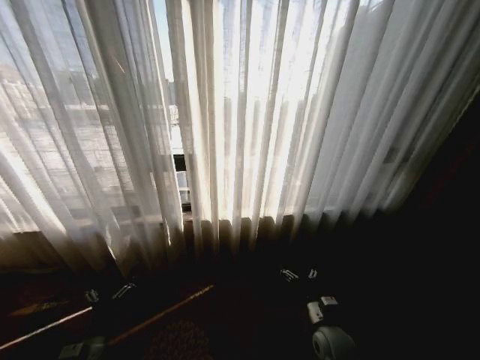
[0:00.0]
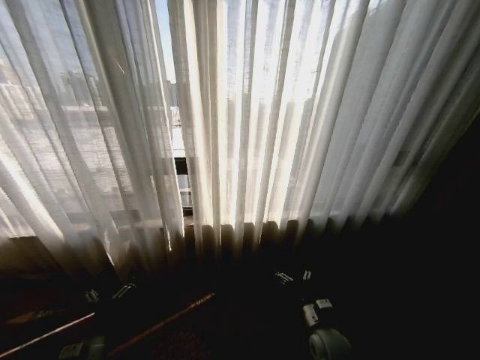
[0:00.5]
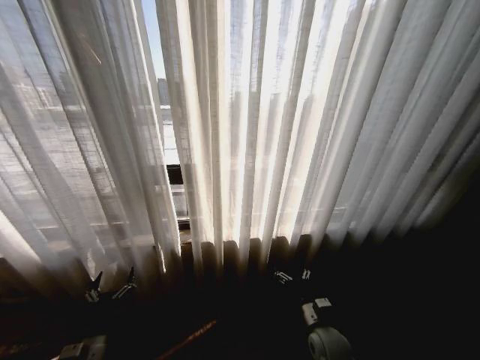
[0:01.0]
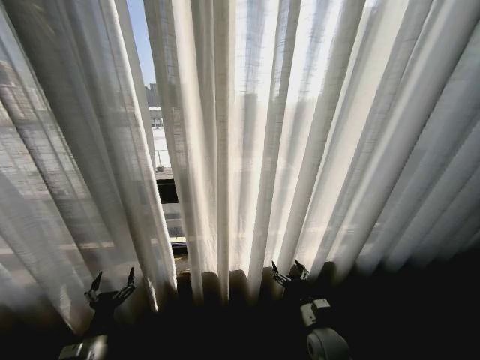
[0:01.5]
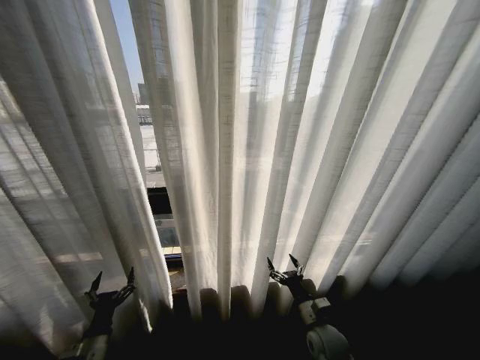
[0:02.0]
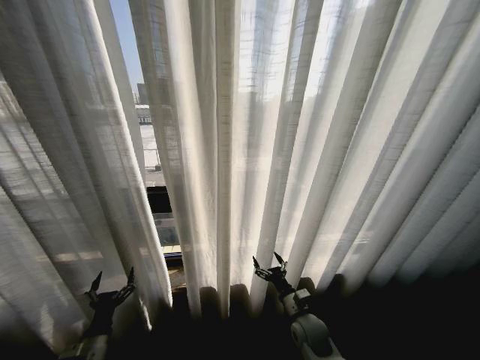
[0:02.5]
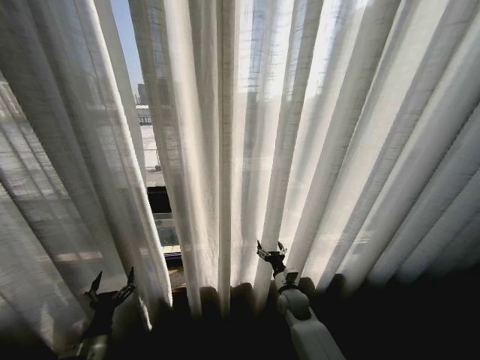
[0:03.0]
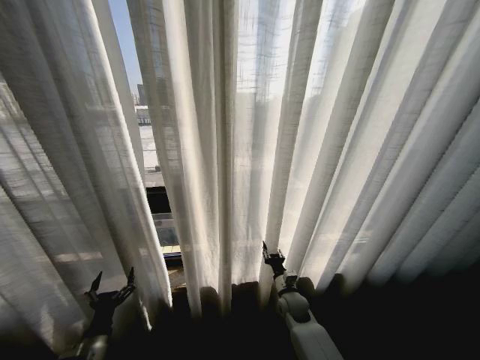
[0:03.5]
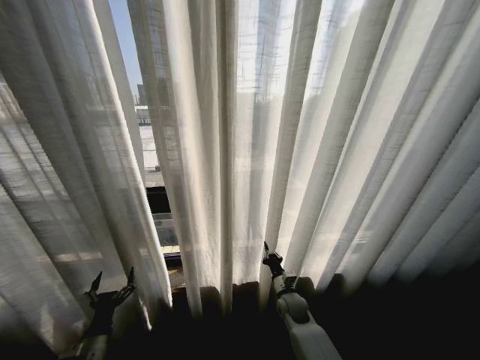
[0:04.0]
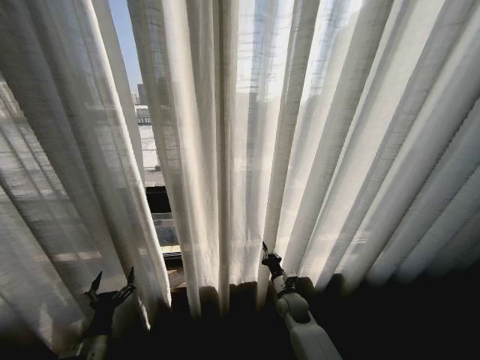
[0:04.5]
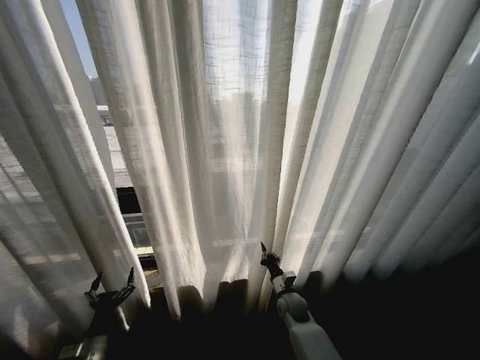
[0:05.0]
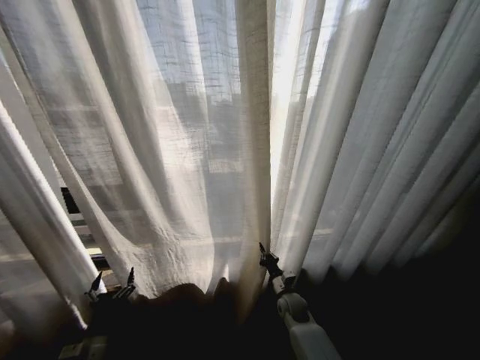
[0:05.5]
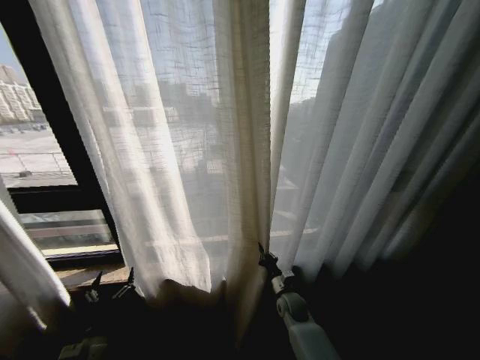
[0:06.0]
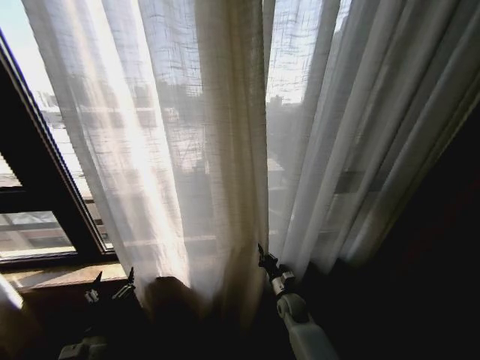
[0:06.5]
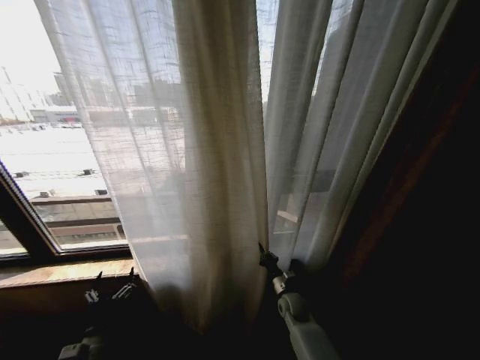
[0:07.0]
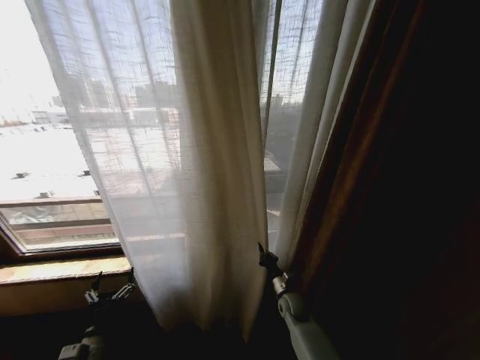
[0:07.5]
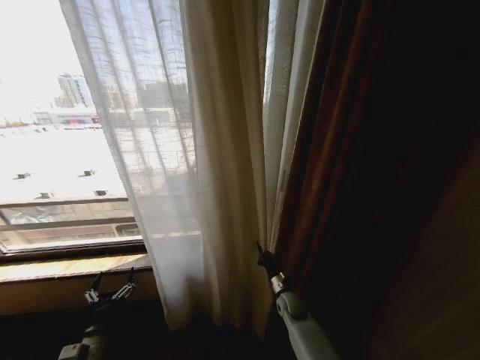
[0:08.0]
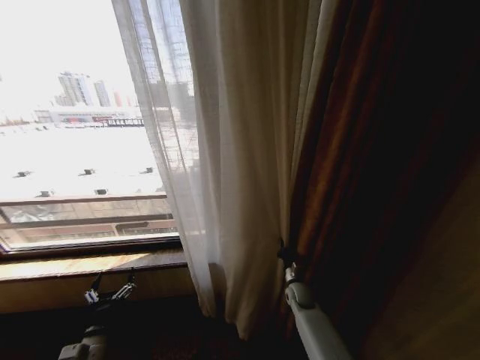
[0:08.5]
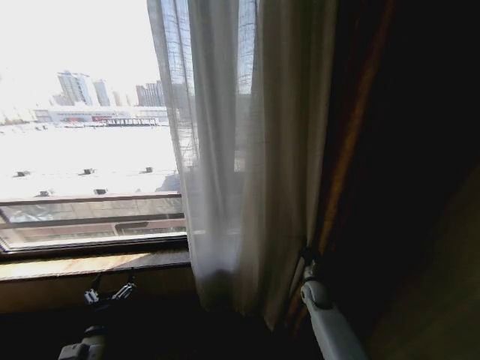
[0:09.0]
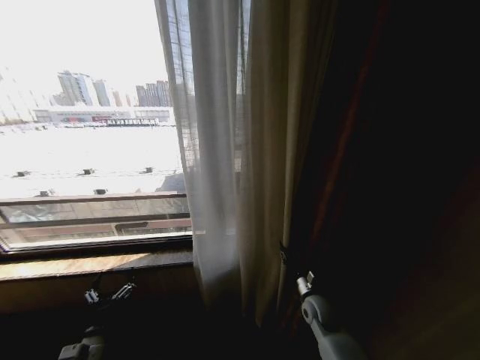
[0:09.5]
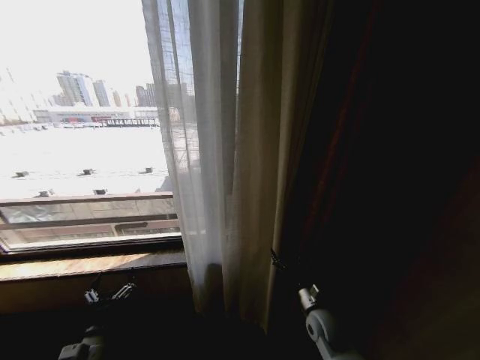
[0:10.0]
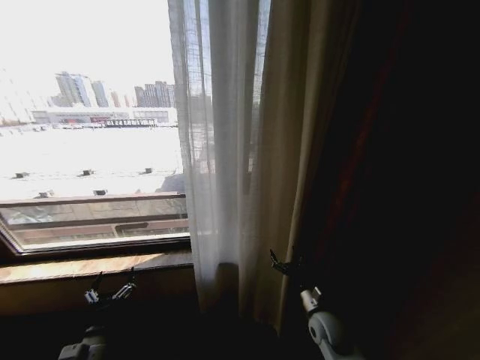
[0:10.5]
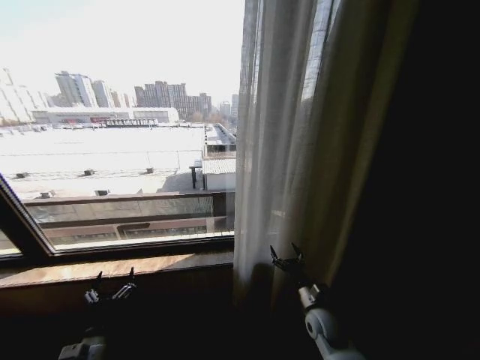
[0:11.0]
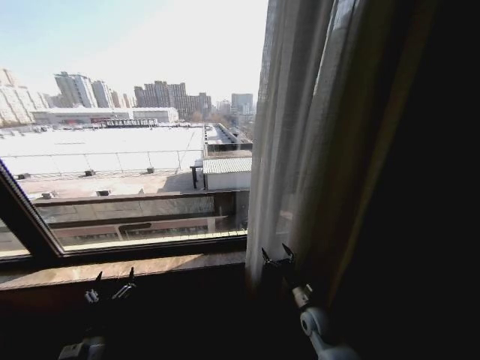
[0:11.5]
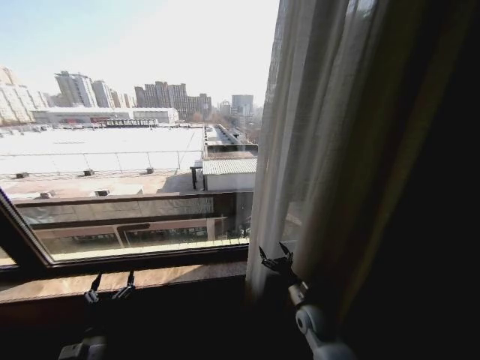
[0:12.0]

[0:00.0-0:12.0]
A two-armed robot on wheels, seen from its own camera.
Task of the whole recording: Open the curtains by pulling them apart, changing their state from closed to fully open.
0:02.0 to 0:04.0: The right gripper shifts about 10 cm forward, and closes.
0:08.0 to 0:10.0: The right gripper heads backward, upward and to the right, covering some 10 cm, and opens its fingers.

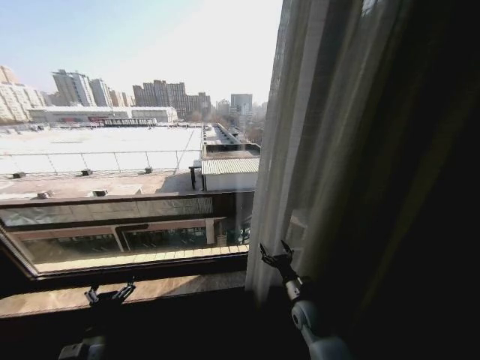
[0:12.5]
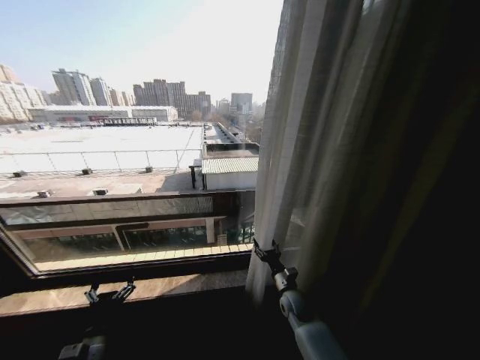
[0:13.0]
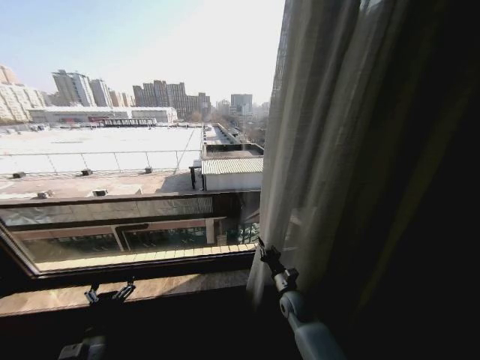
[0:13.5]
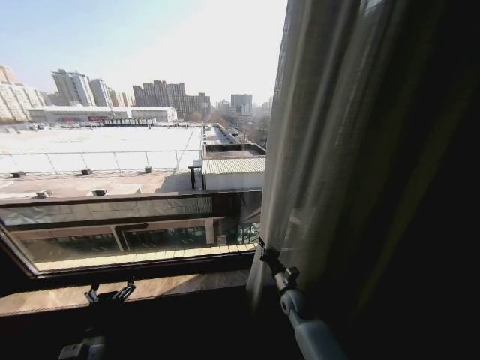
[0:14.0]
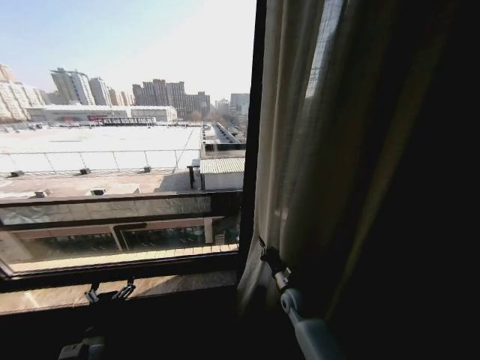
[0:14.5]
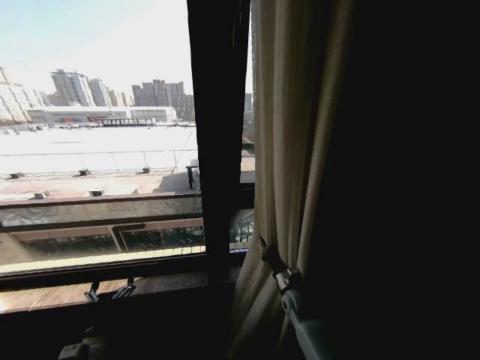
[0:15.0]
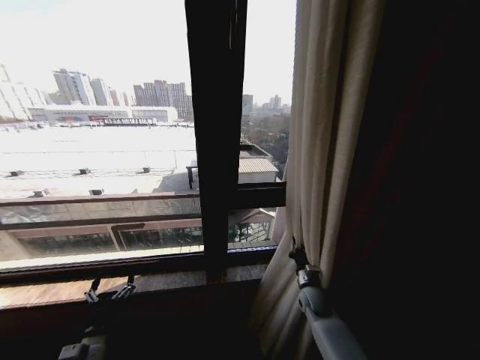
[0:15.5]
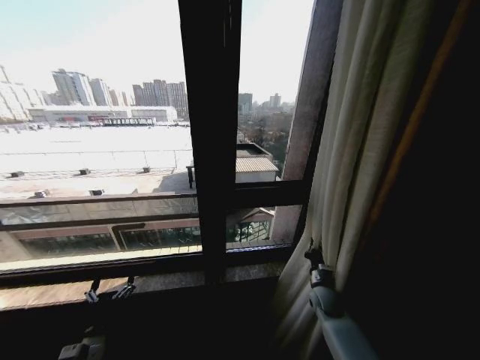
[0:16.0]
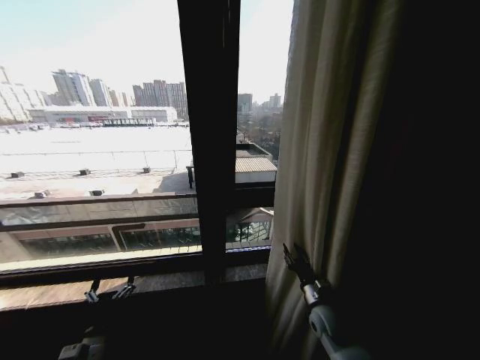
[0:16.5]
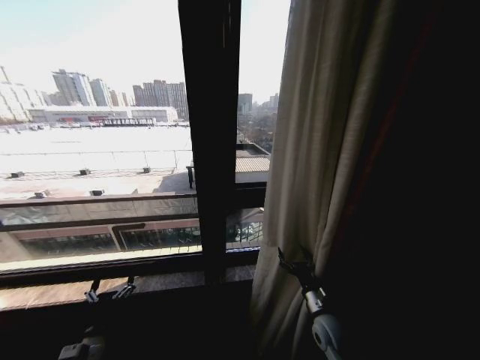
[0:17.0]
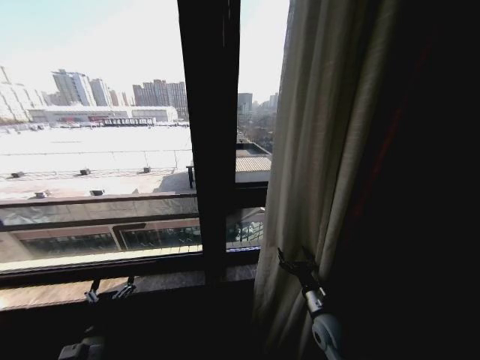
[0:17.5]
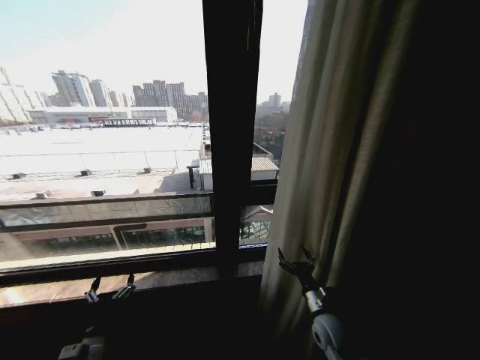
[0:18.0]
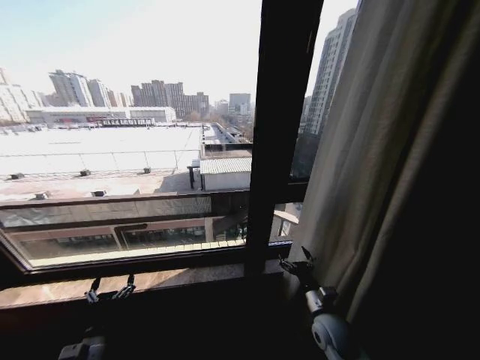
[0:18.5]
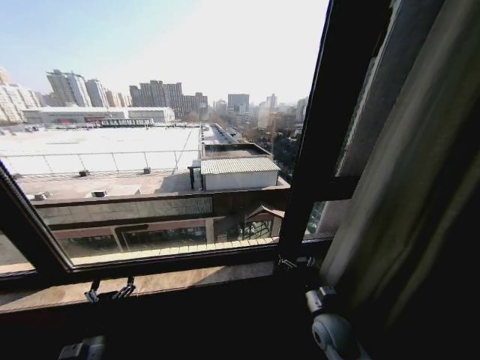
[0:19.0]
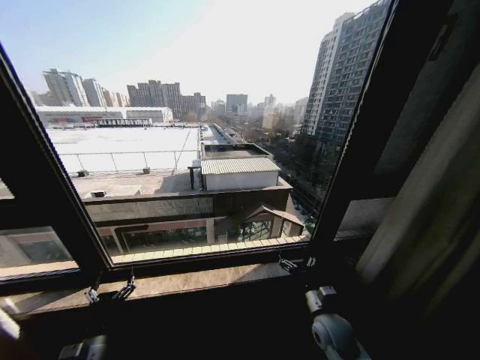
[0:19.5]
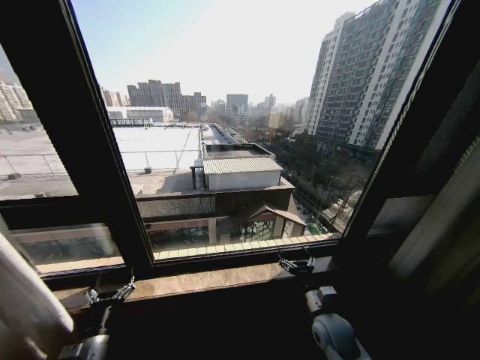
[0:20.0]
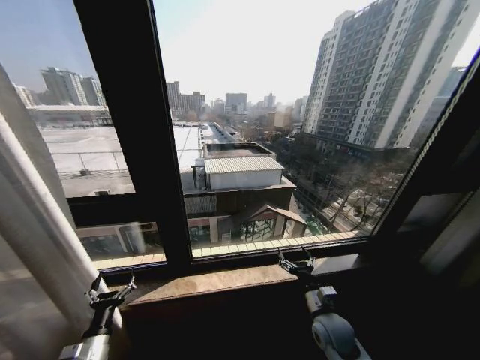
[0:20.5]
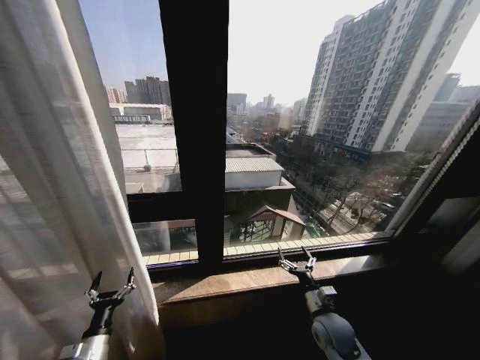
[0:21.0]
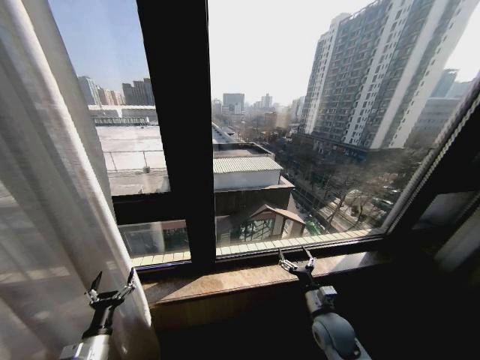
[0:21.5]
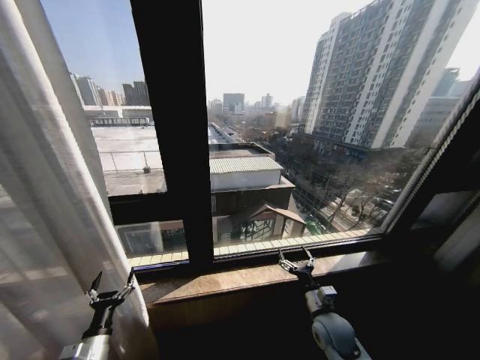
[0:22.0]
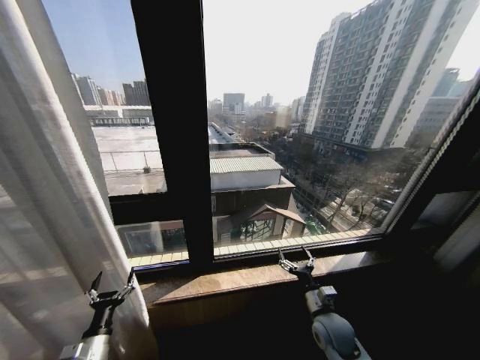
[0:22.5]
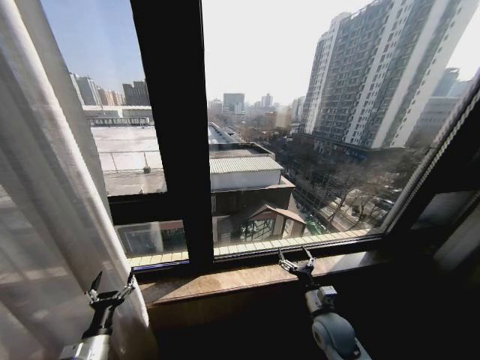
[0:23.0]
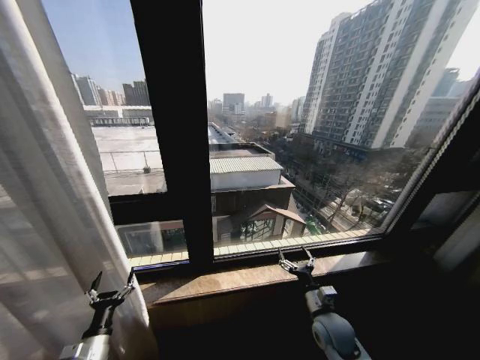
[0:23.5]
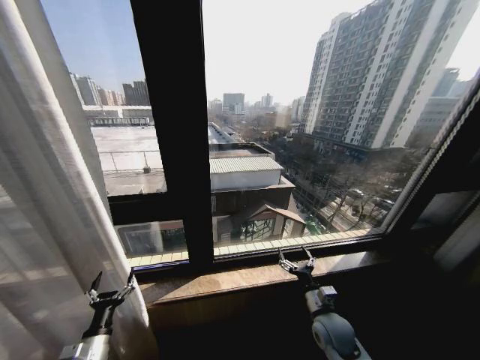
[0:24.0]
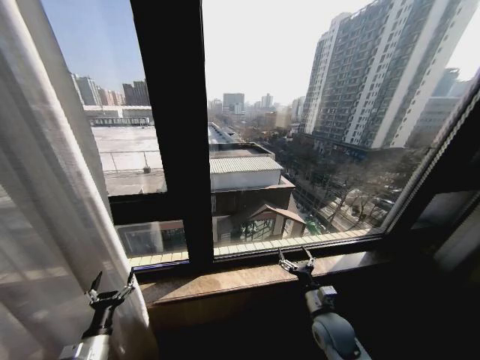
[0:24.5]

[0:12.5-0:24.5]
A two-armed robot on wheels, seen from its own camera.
Task of the whole recording: Open the curtains by pulling them apart, changing their state from closed to fully open.
0:12.5 to 0:14.5: The right gripper moves forward, some 5 cm, and closes its fingers.
0:14.5 to 0:16.5: The right gripper is displaced backward and to the right by some 10 cm, and opens its fingers.
0:16.5 to 0:18.5: The right gripper opens up.
0:22.5 to 0:24.5: Both grippers stay about where they are.

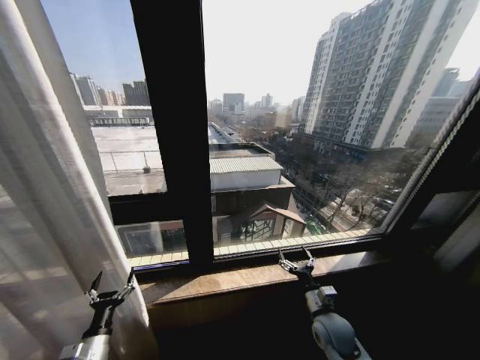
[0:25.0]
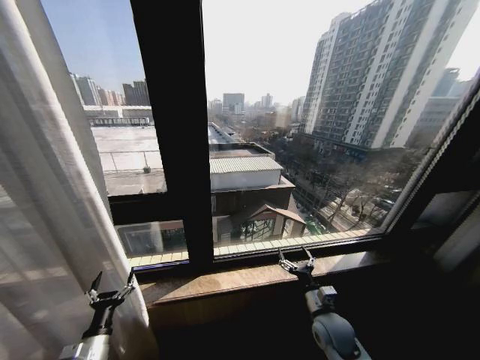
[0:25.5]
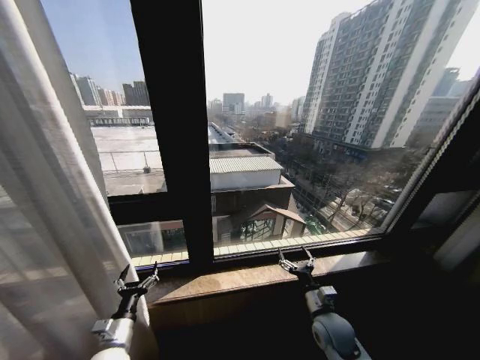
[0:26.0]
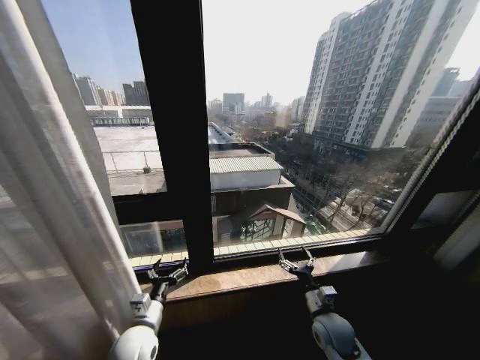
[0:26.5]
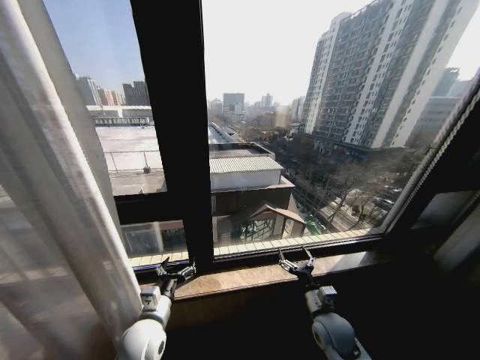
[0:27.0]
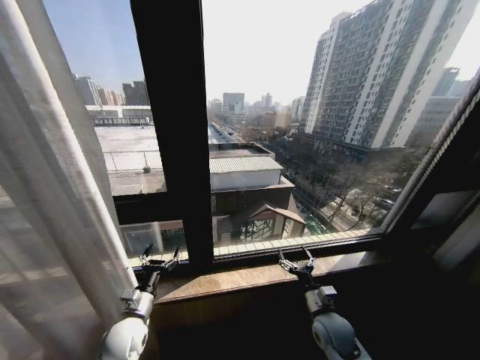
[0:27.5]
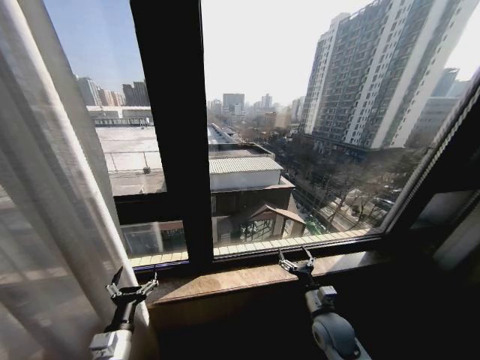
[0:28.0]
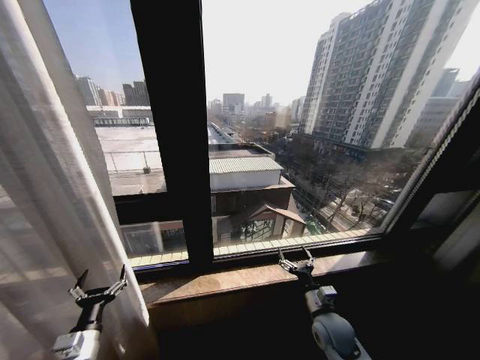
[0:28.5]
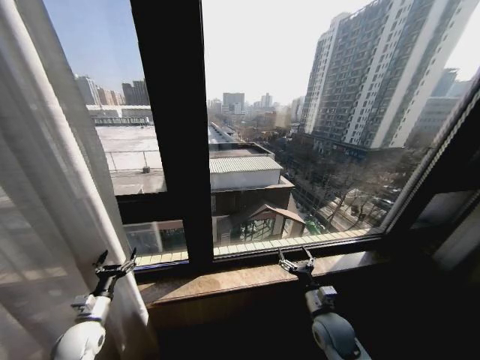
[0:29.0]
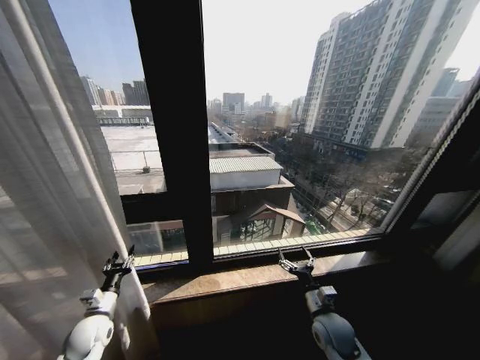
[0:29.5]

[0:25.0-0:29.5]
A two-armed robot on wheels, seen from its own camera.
Task of the whole recording: Open the curtains by pulling them apart, changing their state from closed to fully open.
0:25.0 to 0:27.0: The left gripper moves to the right, upward and forward, some 20 cm.
0:27.0 to 0:29.5: The left gripper heads to the left, covering some 20 cm, and closes.
